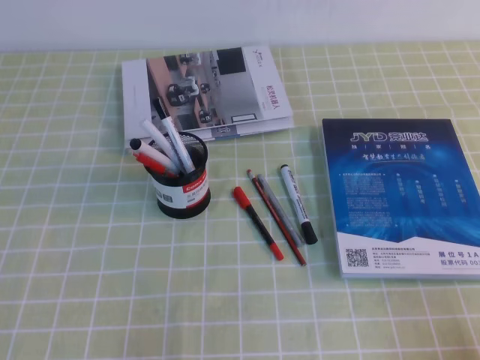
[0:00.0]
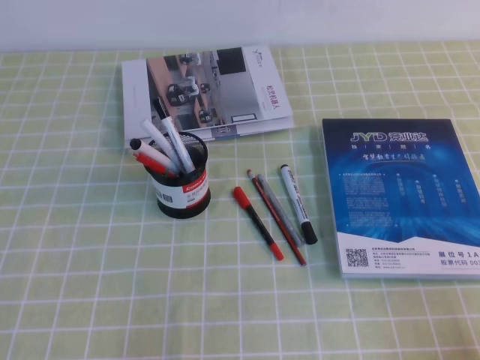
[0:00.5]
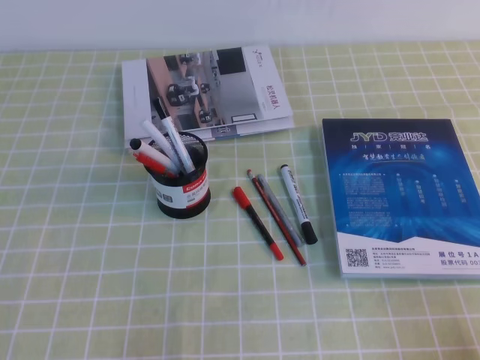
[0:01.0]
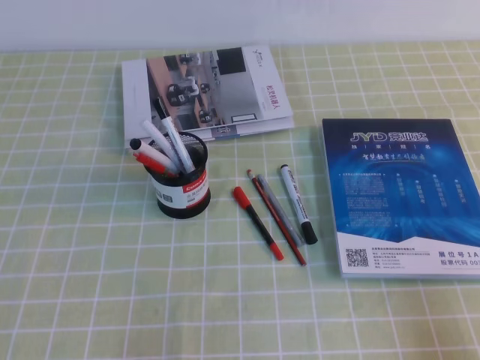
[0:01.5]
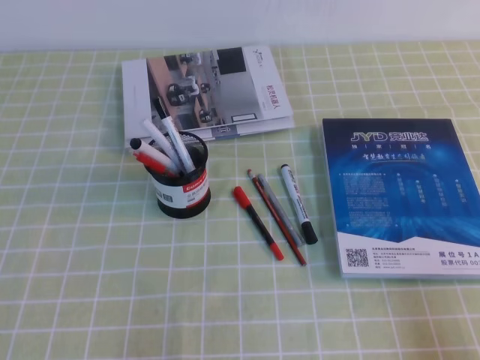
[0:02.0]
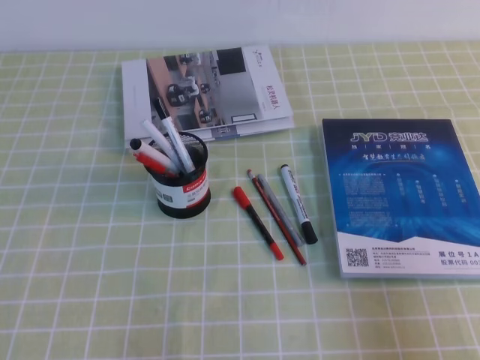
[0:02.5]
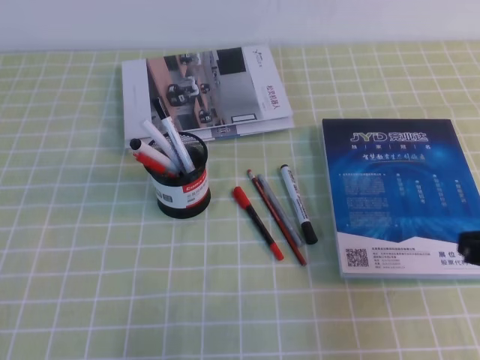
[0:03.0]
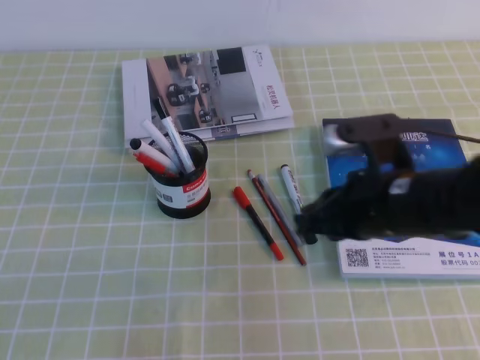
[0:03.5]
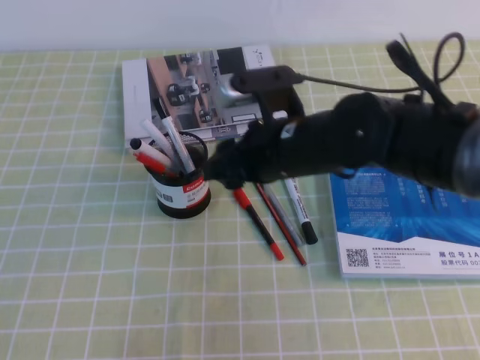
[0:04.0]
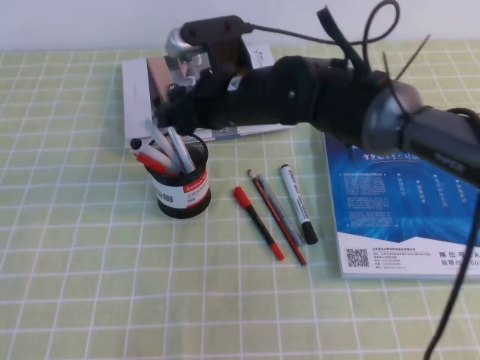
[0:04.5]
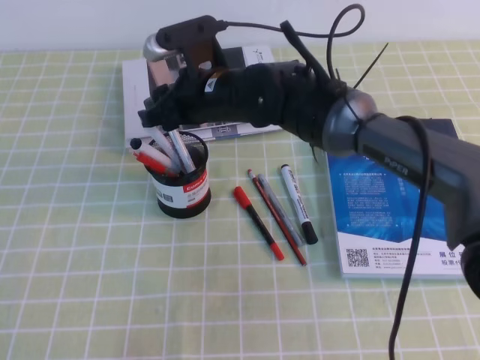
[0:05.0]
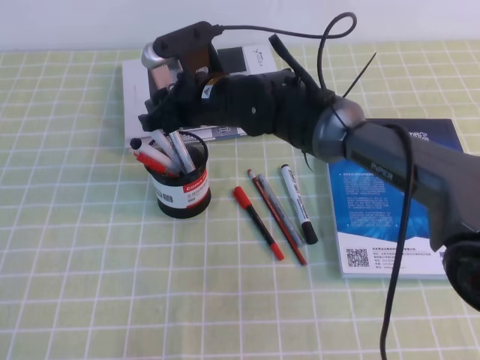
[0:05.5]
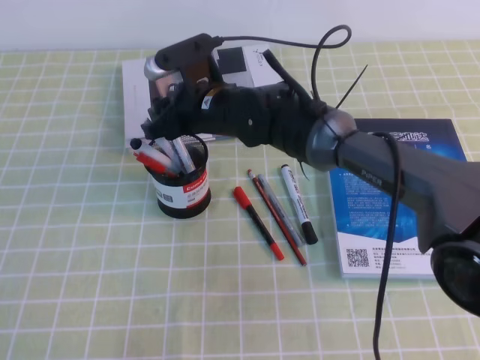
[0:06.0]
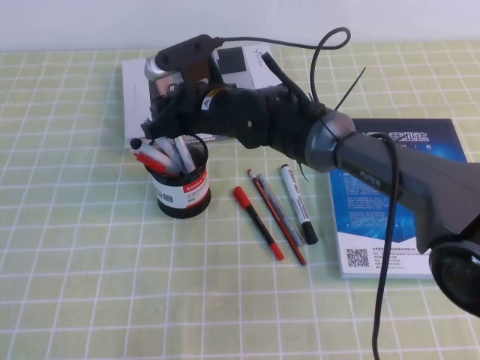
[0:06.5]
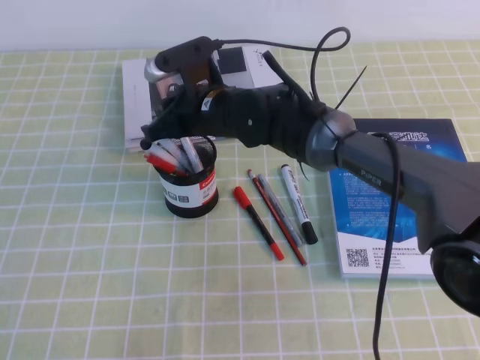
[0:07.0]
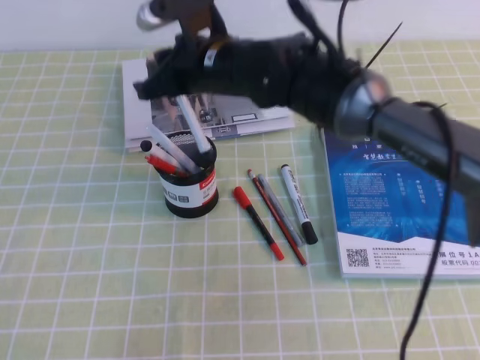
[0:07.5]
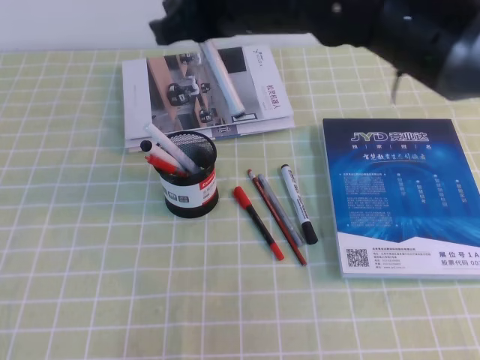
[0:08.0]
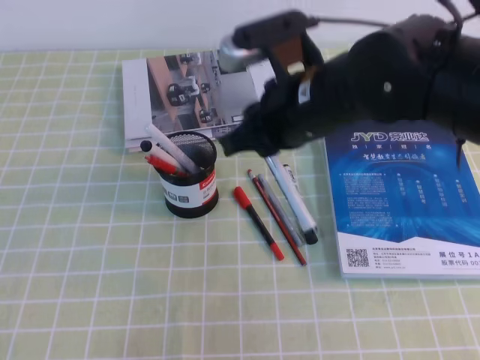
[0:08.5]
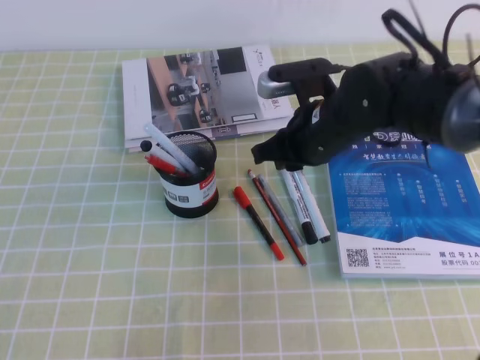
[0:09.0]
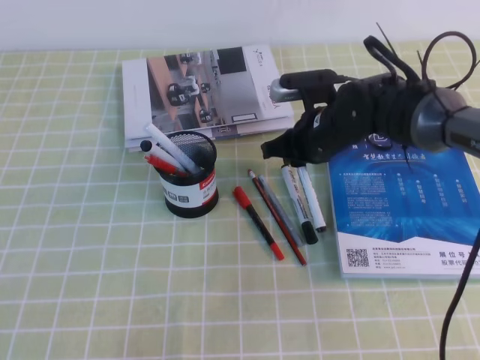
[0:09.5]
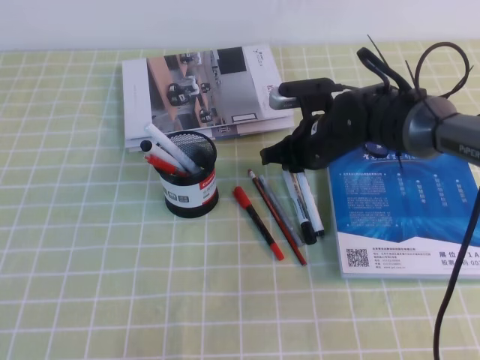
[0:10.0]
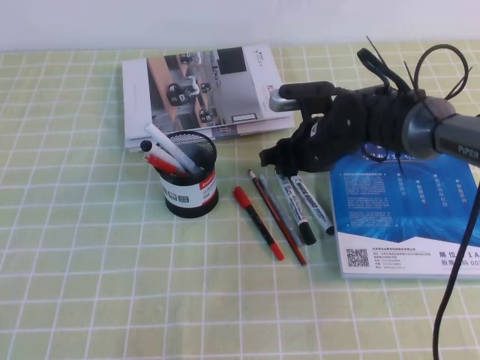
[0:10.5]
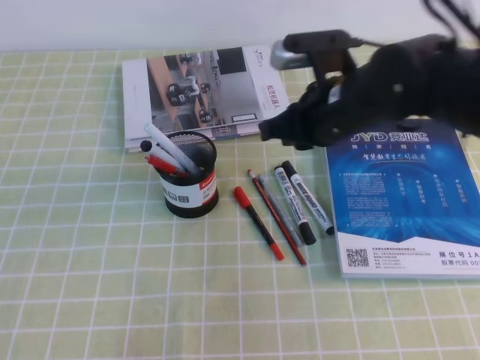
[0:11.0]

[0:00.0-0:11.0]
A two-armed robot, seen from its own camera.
0:02.0 to 0:03.5: The right gripper shifts some 25 cm forward and to the left.
0:03.5 to 0:05.5: The right gripper moves to the left and forward, about 25 cm, and opens its fingers.
0:05.5 to 0:07.5: The right gripper goes some 5 cm upward, and closes up.
0:07.5 to 0:09.0: The right gripper goes about 10 cm to the right and downward.
0:09.0 to 0:11.0: The right gripper moves some 5 cm downward and comes back, and opens, then closes once more.

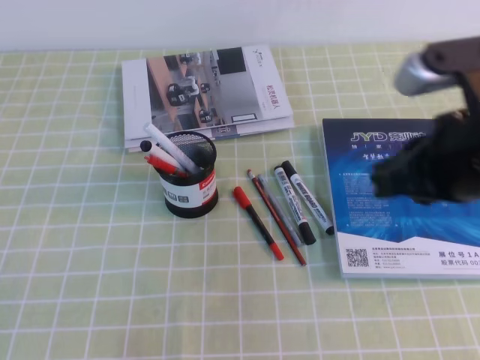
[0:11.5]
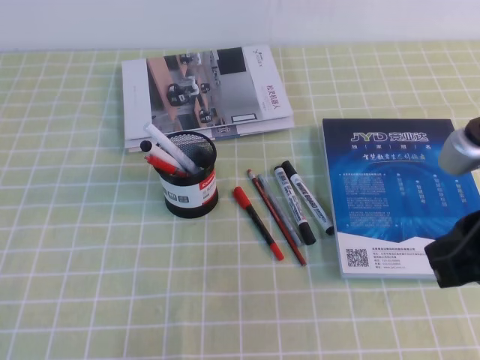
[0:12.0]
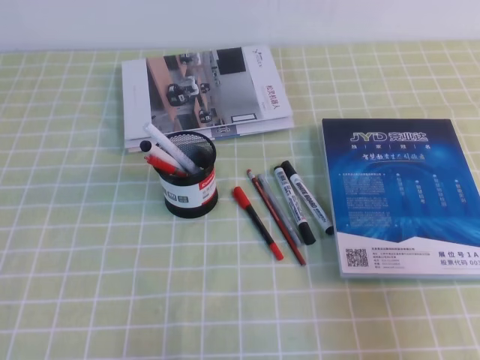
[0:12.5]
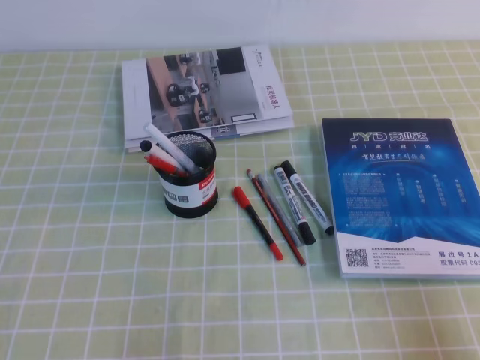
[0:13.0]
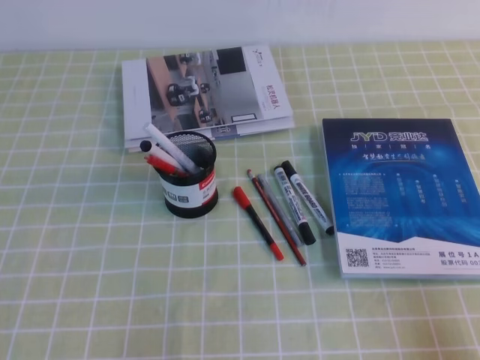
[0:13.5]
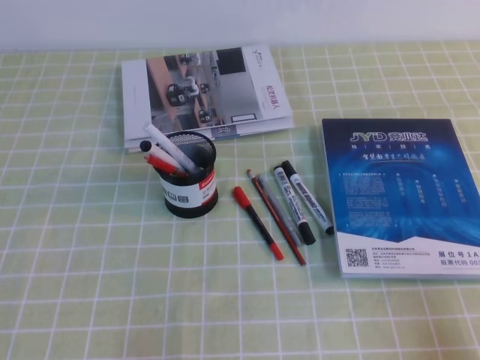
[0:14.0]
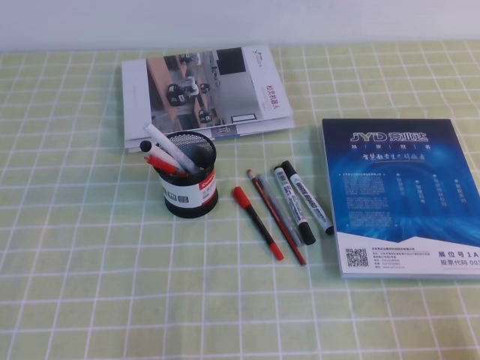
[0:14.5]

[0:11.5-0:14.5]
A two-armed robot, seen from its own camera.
Step, 0:11.5 to 0:14.5: Pick up the pen from the pen holder.
0:11.5 to 0:13.0: The right gripper heads backward, to the right and downward, covering about 25 cm.

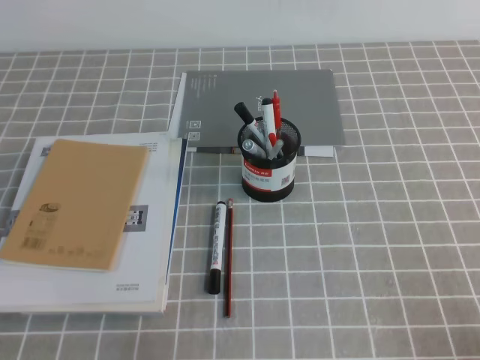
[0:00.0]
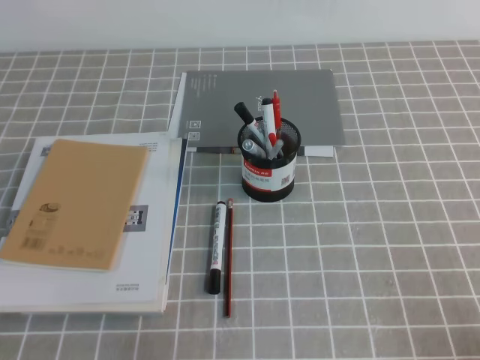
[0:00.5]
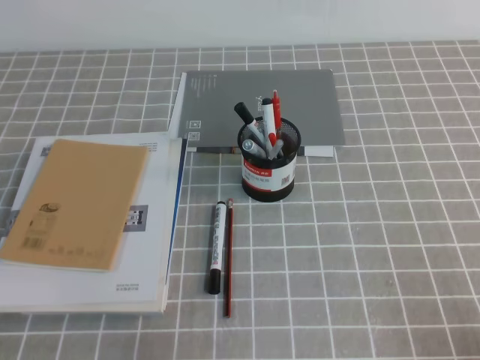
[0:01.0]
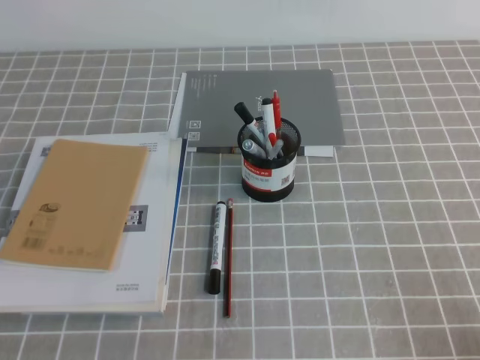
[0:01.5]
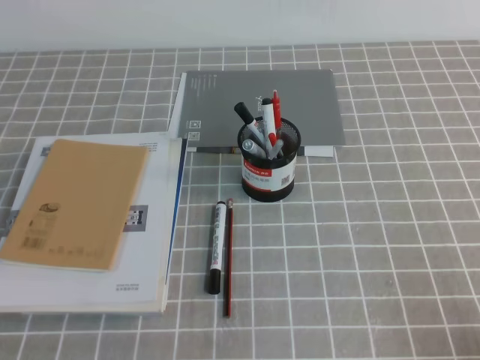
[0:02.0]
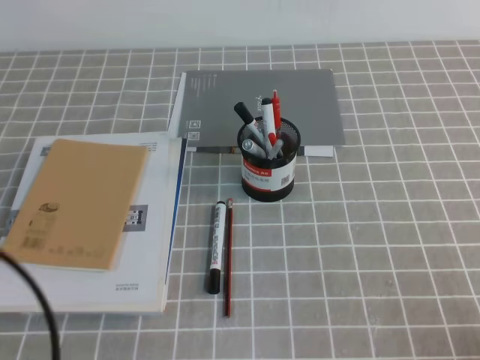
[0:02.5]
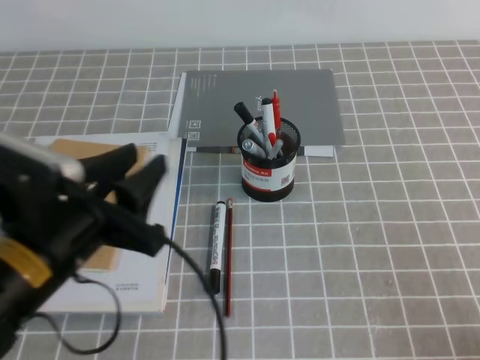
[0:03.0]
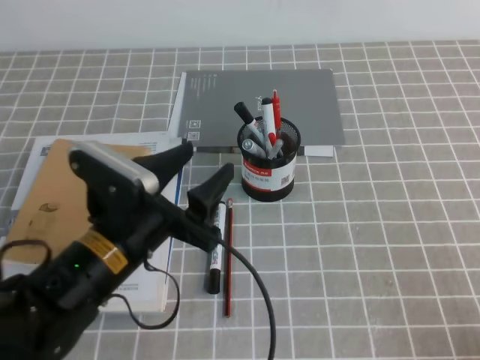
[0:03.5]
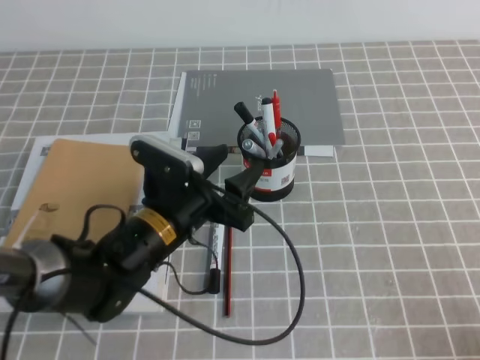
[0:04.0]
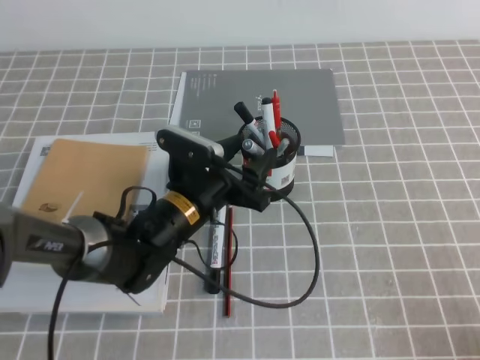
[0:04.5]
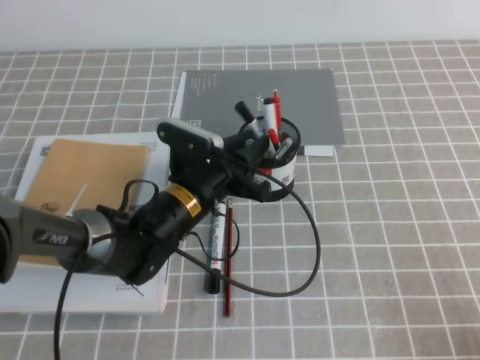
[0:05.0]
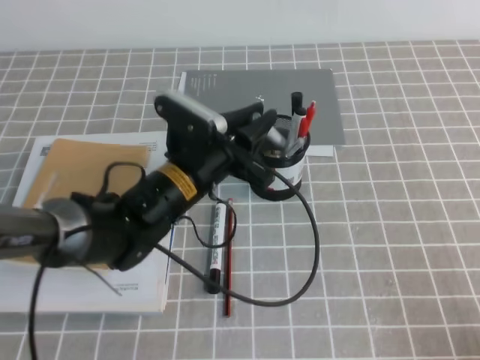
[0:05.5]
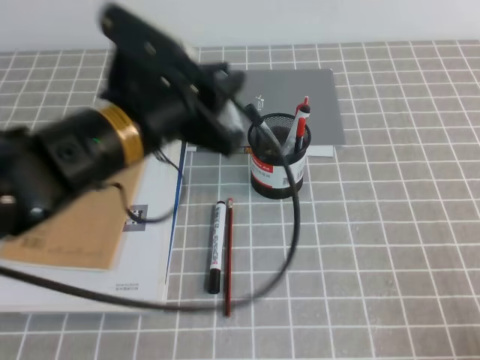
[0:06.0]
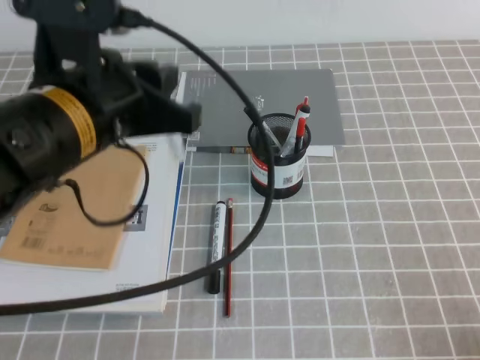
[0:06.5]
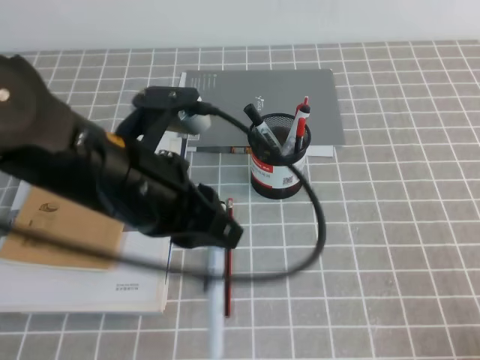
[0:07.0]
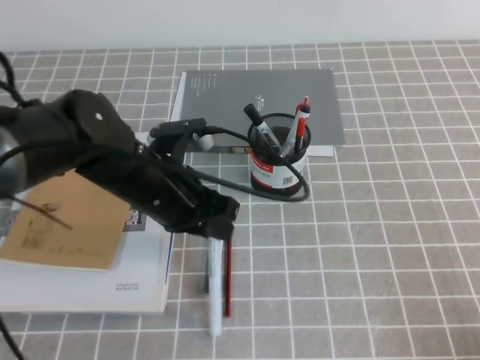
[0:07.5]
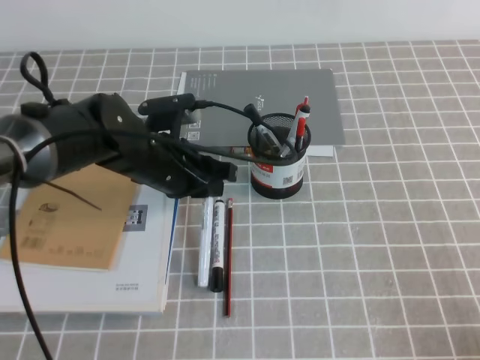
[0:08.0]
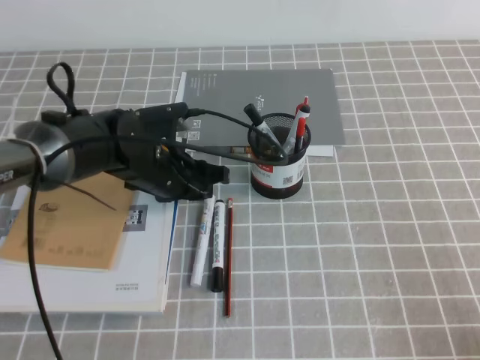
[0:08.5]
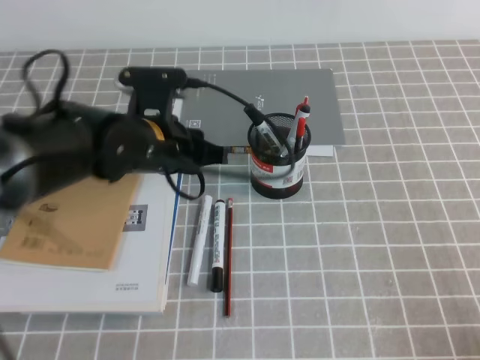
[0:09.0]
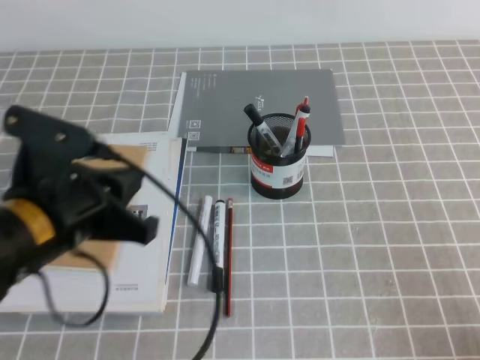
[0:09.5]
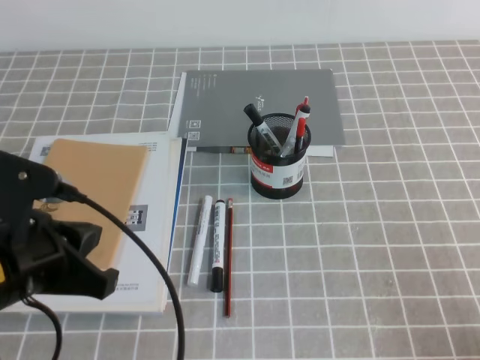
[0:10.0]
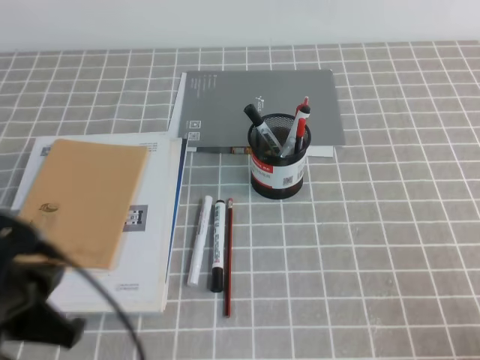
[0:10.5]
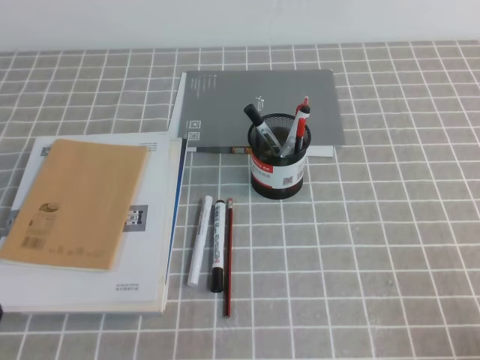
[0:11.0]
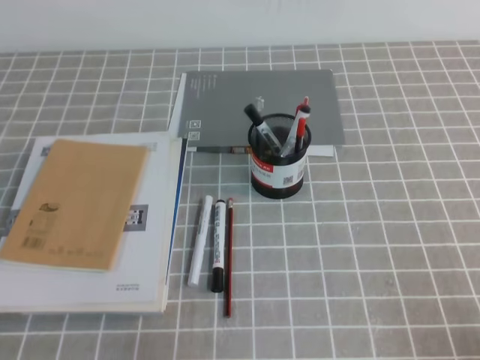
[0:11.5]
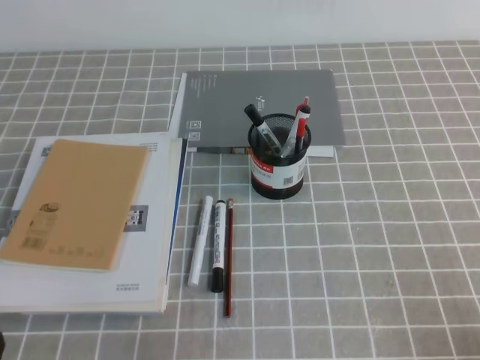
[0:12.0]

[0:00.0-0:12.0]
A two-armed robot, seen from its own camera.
Step, 0:00.0 to 0:12.0: Pick up the pen from the pen holder.
0:02.0 to 0:04.0: The left gripper heads forward and to the right, covering roughly 30 cm, and opens.
0:04.0 to 0:06.0: The left gripper shifts some 15 cm upward, and closes its fingers.
0:06.0 to 0:08.0: The left gripper moves downward and forward, about 15 cm.
0:08.0 to 0:10.0: The left gripper shifts approximately 20 cm backward, to the left and upward.
0:10.0 to 0:12.0: The left gripper is displaced downward, backward and to the left by approximately 20 cm.
